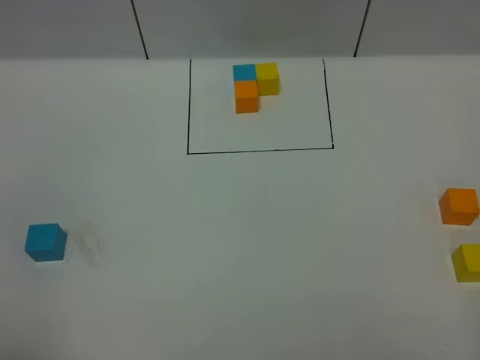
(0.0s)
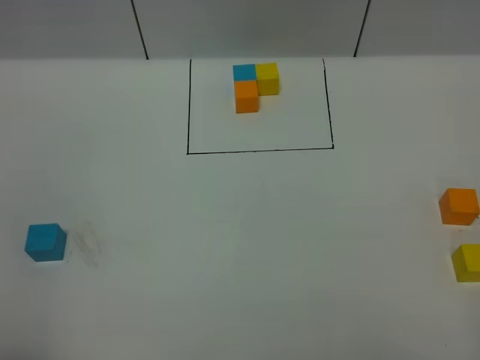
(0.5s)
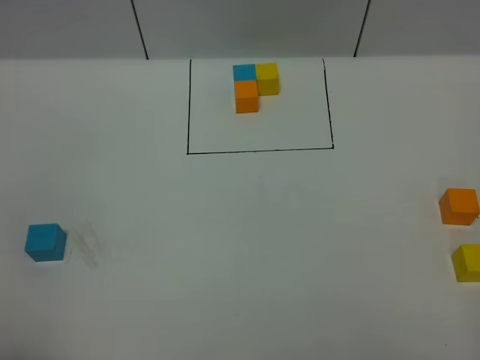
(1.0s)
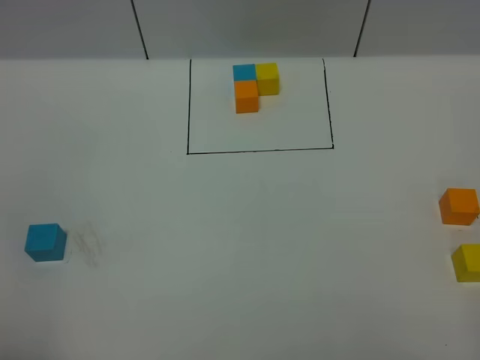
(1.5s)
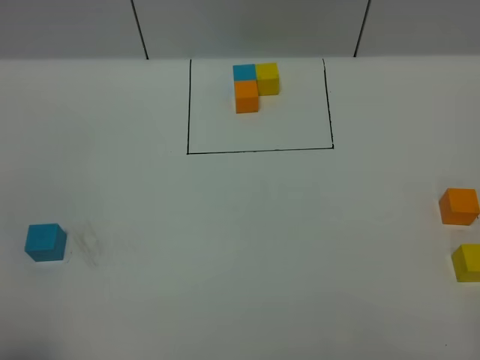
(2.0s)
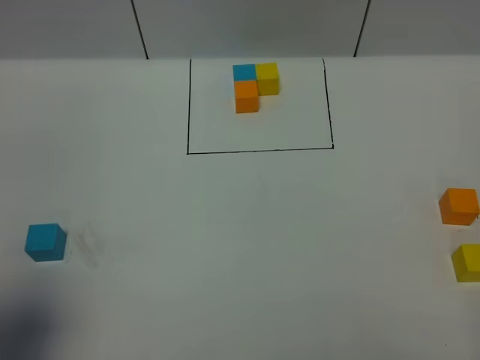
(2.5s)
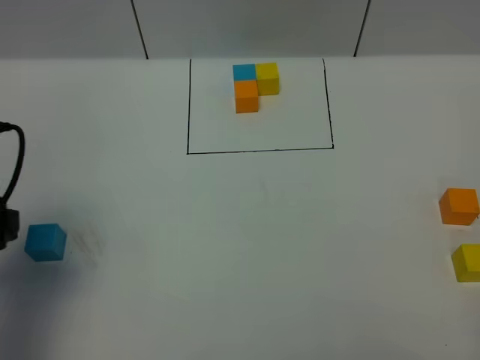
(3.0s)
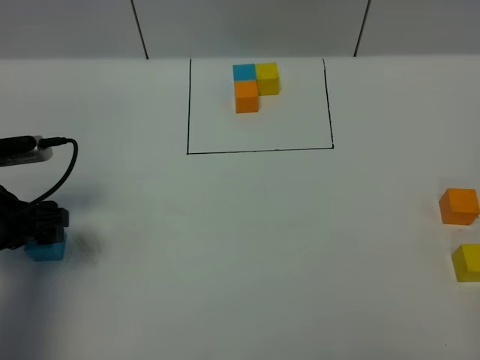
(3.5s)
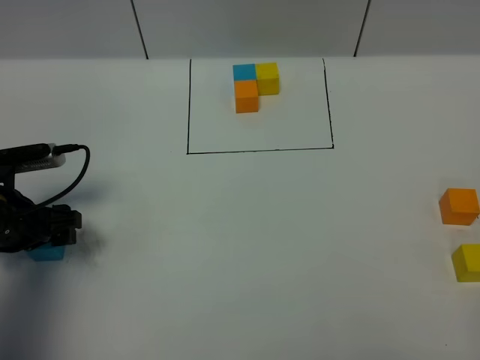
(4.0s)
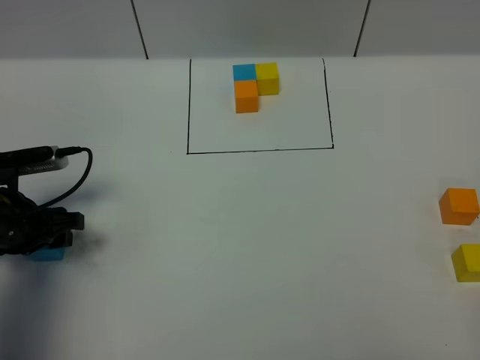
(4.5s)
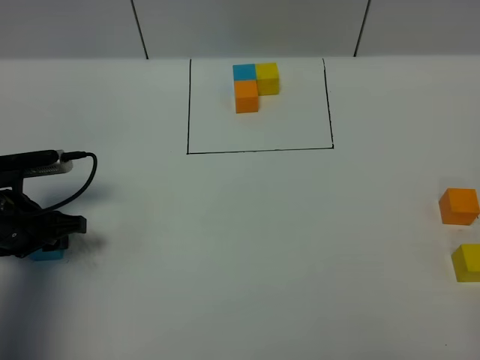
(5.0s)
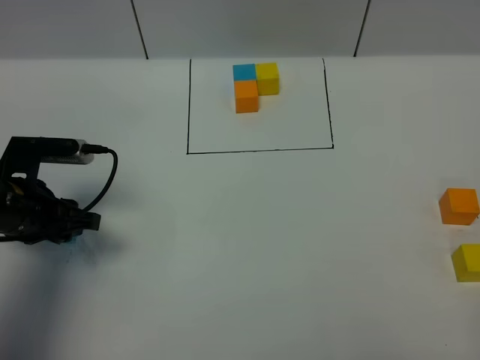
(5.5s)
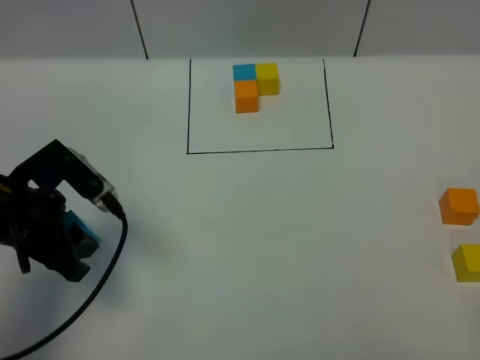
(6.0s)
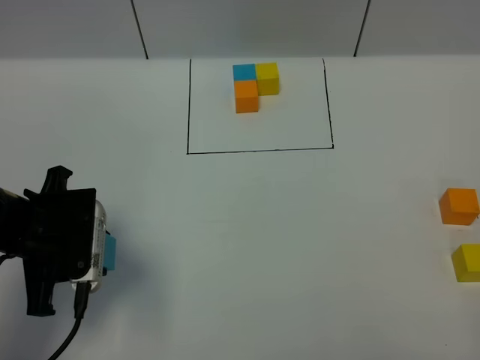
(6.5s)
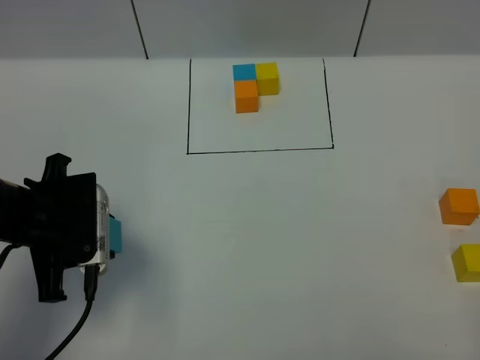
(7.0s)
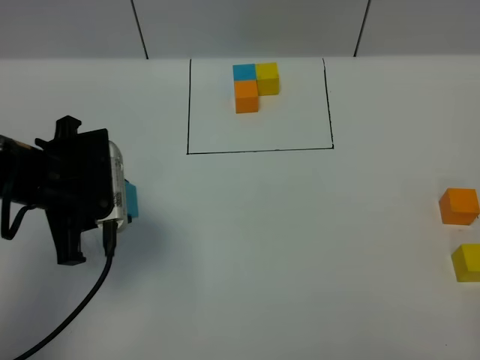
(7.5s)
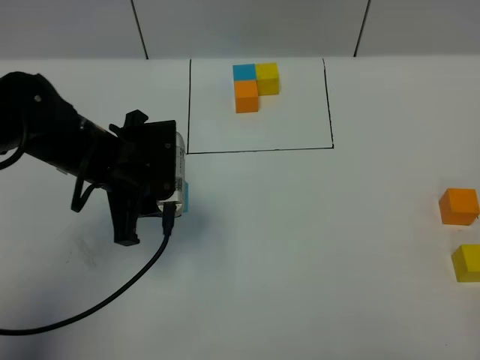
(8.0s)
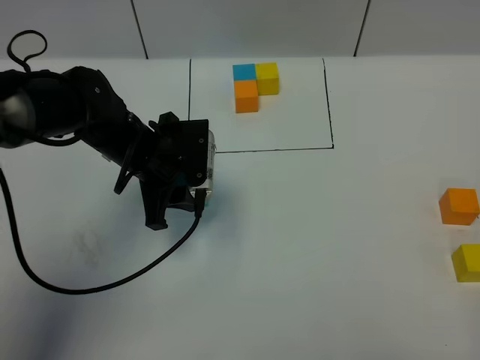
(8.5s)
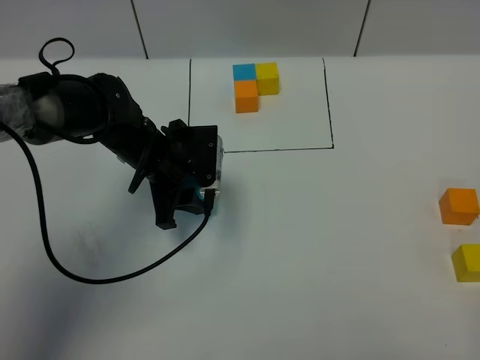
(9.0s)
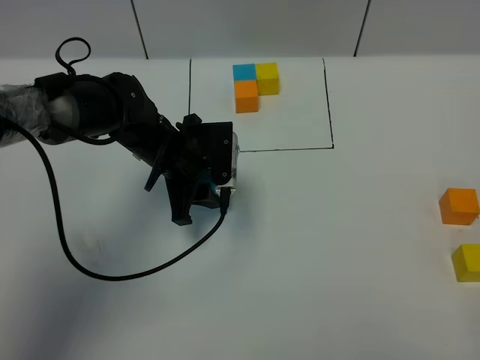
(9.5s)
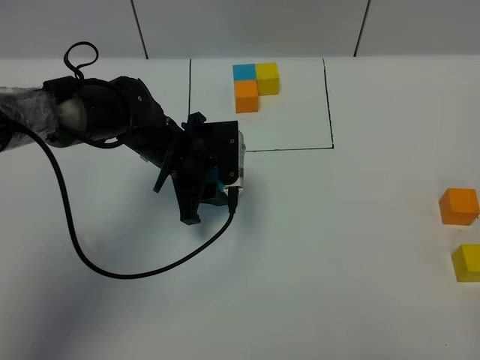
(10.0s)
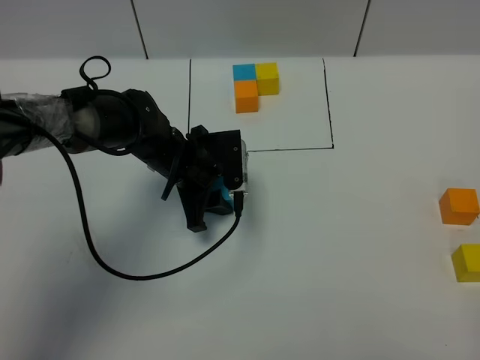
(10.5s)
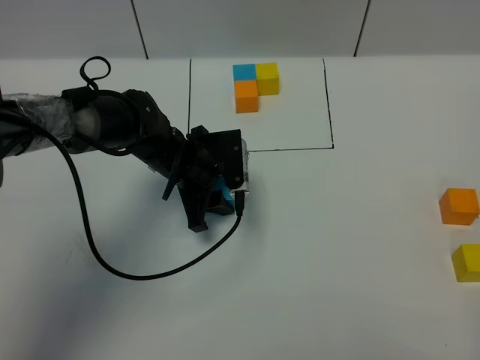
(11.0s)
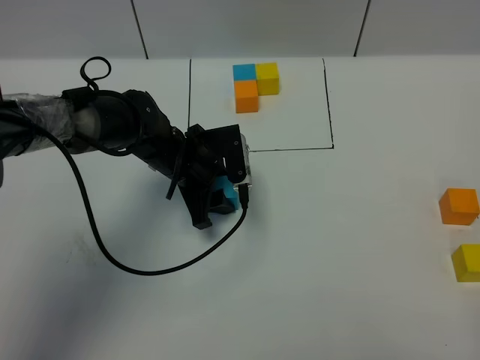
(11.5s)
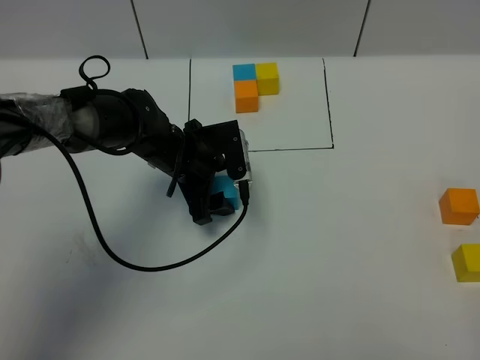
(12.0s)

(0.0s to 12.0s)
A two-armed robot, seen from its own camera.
Task of the whole recording: According to the building block template in front, assemble the scattered blocks together.
2.0s - 4.0s: The left gripper goes some 30 cm forward and downward.
4.0s - 6.0s: The left gripper heads upward, covering approximately 5 cm, and closes its fingers.
6.0s - 8.0s: The left gripper shifts some 10 cm to the right and forward.
8.0s - 10.0s: The left gripper heads downward, forward and to the right, covering roughly 10 cm.
10.0s - 12.0s: The left gripper opens.

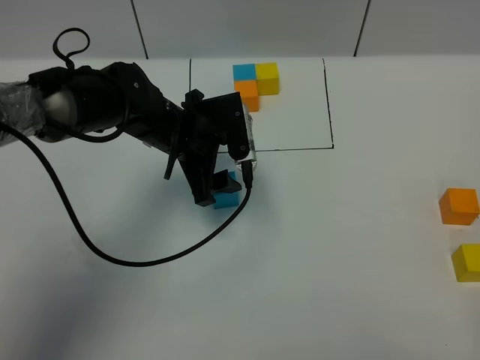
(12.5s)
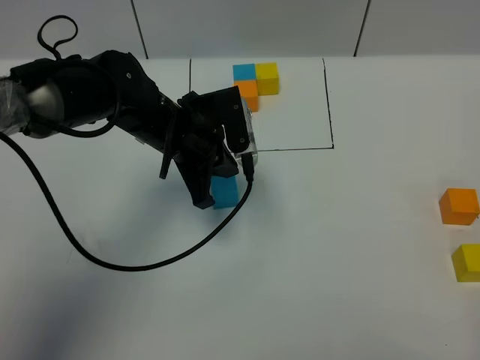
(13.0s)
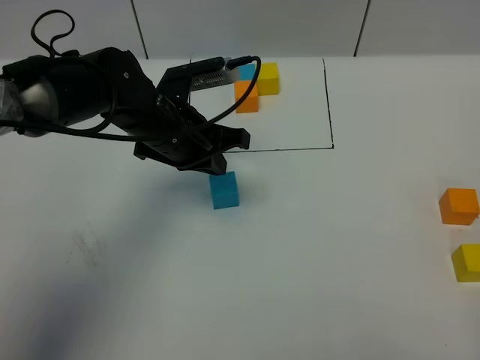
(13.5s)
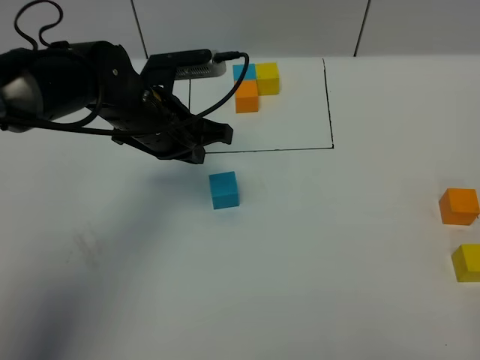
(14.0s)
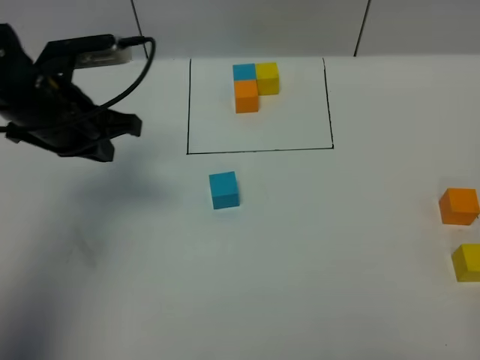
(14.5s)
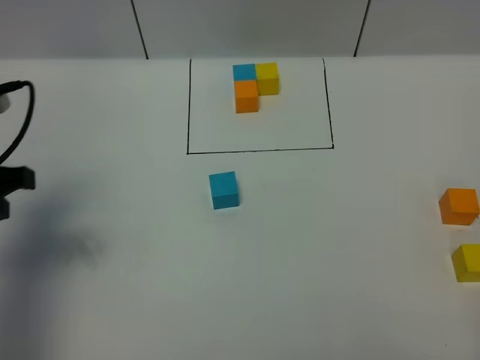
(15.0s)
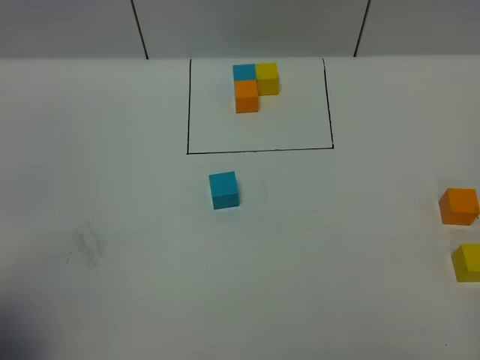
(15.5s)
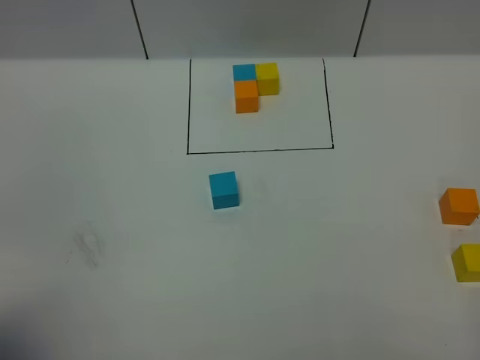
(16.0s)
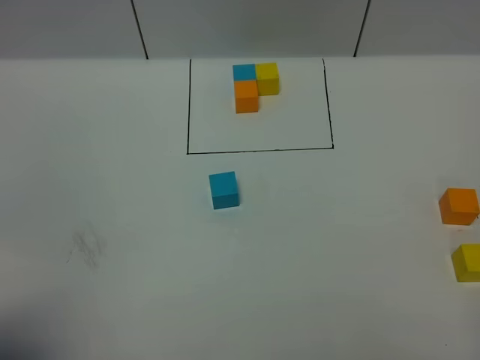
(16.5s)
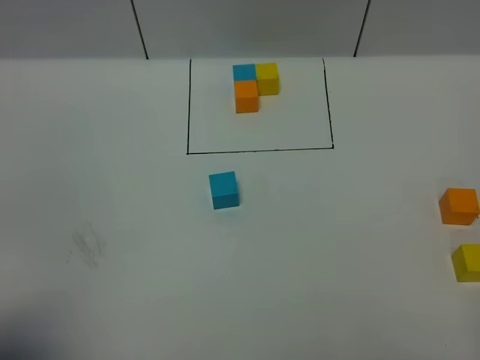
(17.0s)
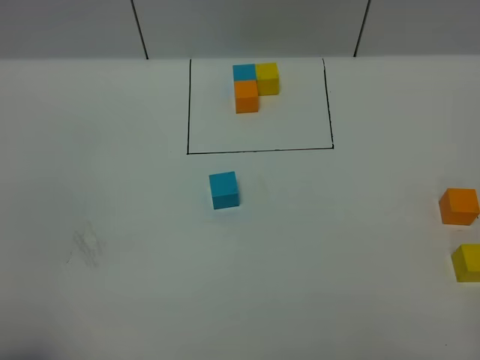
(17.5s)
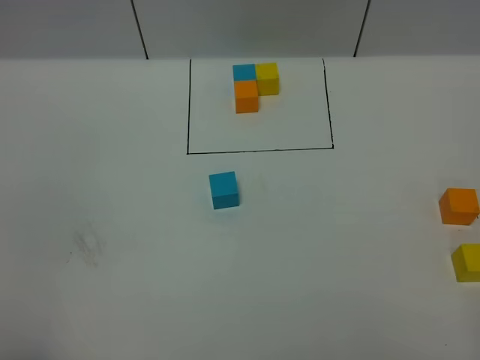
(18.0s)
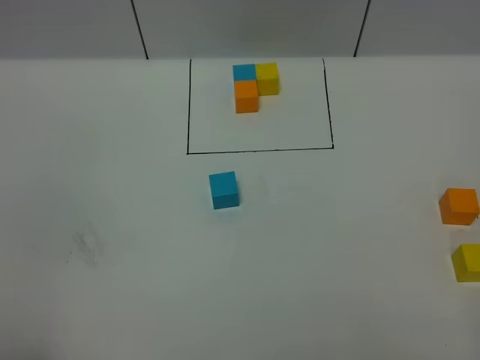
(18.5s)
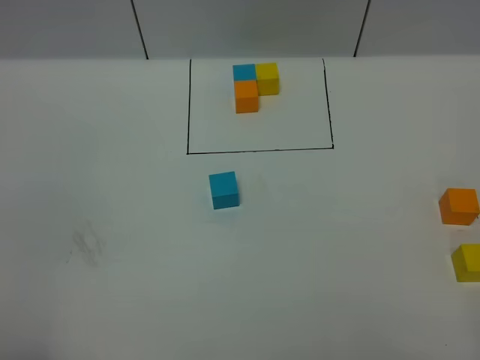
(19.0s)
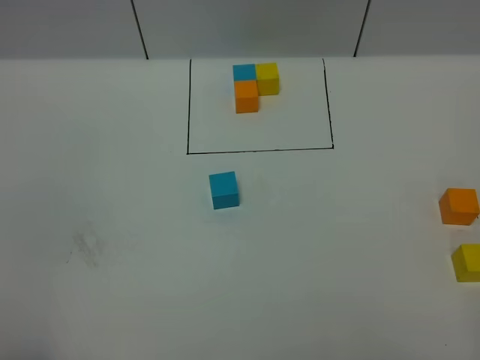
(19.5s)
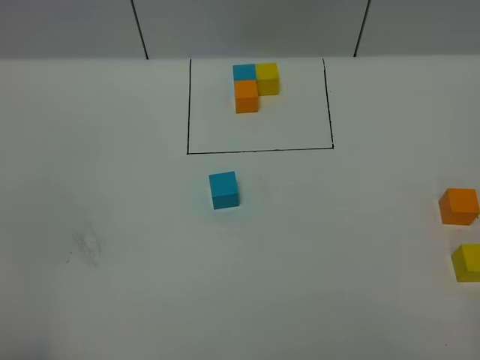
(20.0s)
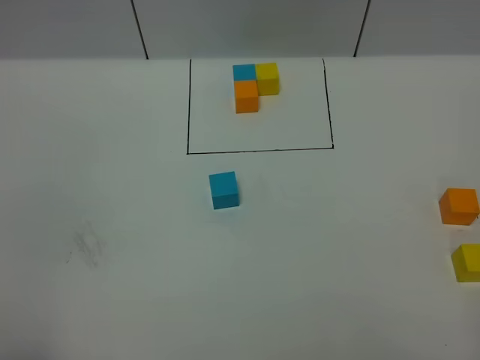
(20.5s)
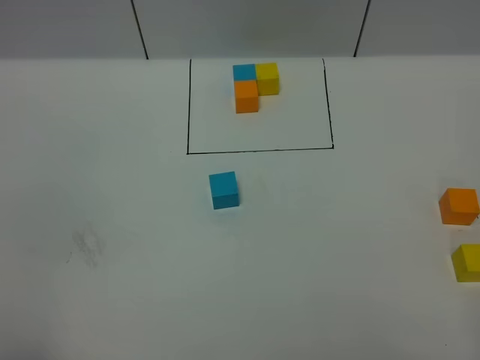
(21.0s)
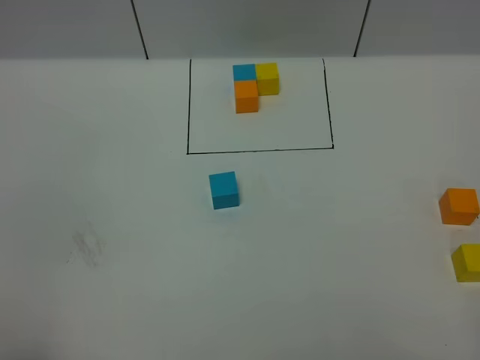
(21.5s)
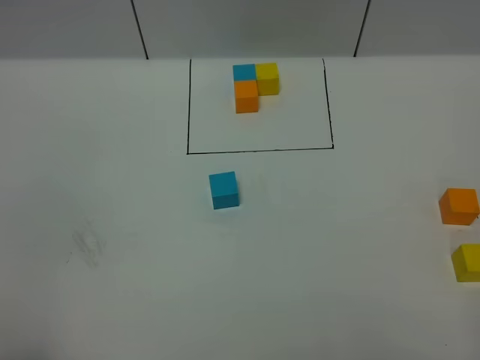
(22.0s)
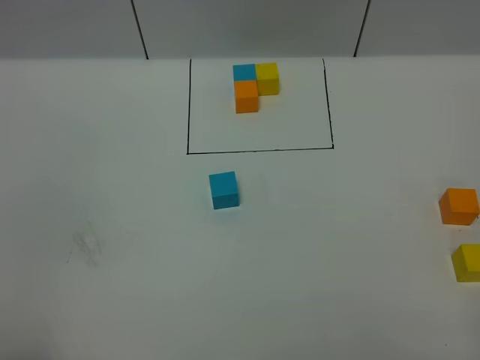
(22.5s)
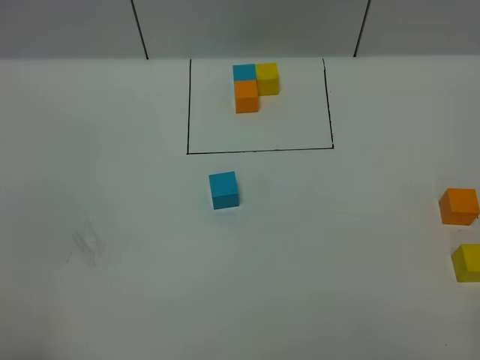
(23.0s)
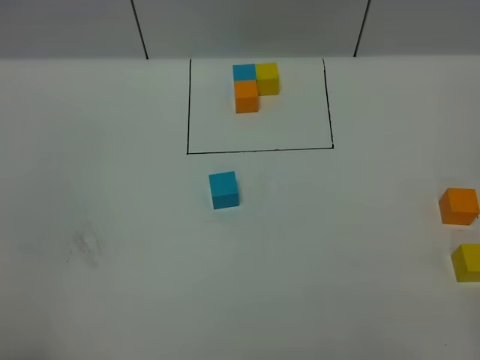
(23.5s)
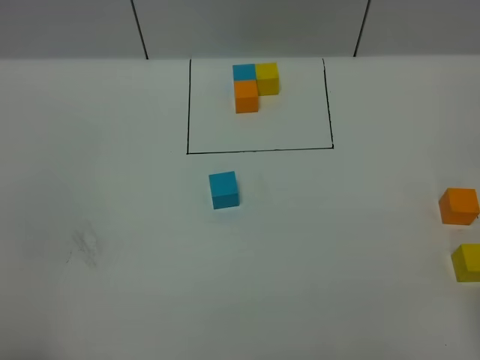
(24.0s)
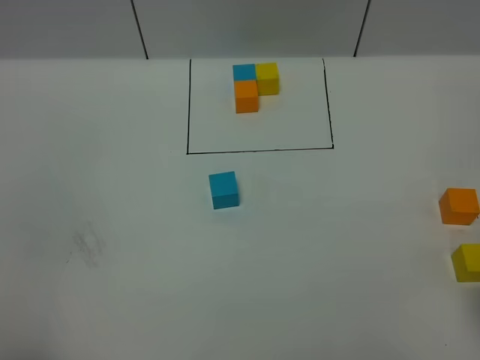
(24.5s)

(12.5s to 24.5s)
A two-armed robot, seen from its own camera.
Task of the whole recording: According to the building block template in front, assemble the scattered blocks together.
12.5s - 14.5s: The left gripper goes approximately 15 cm to the left and upward, and closes.
14.5s - 16.5s: The left gripper moves backward, roughly 30 cm.
18.5s - 20.5s: Neither gripper changes place.

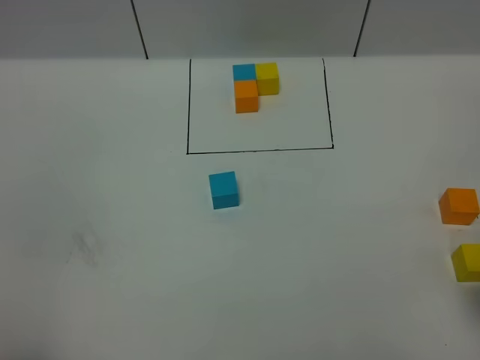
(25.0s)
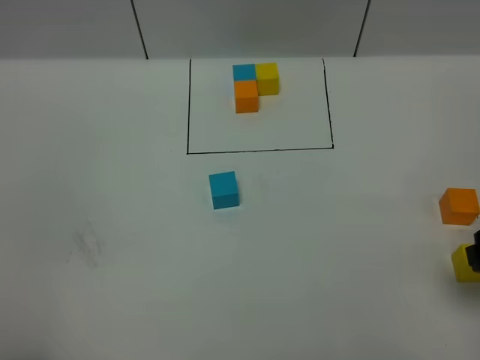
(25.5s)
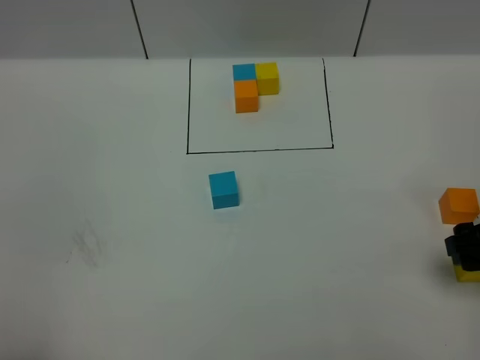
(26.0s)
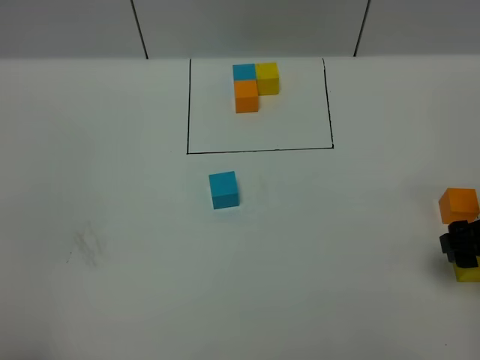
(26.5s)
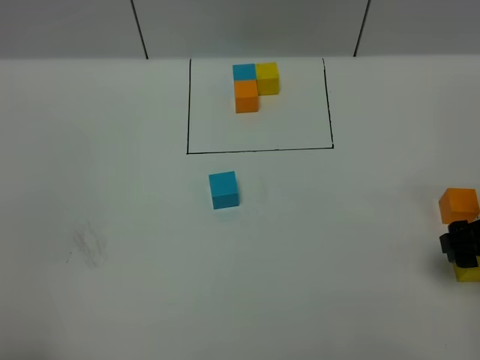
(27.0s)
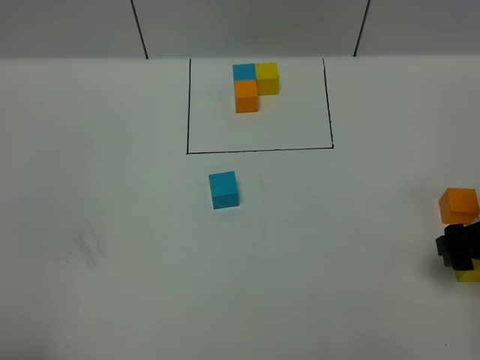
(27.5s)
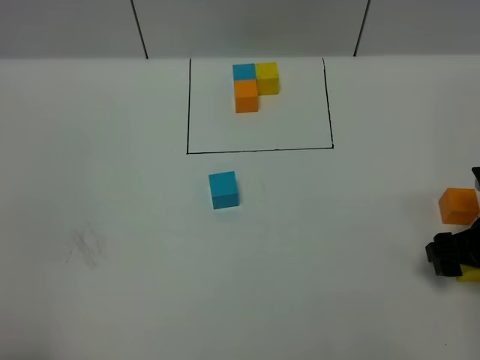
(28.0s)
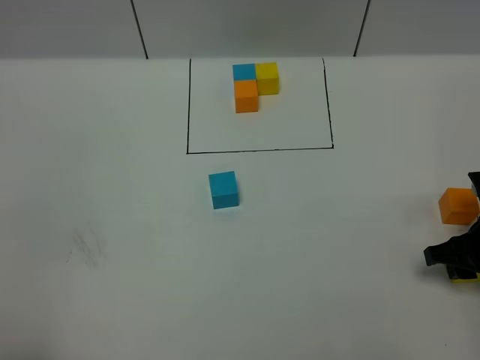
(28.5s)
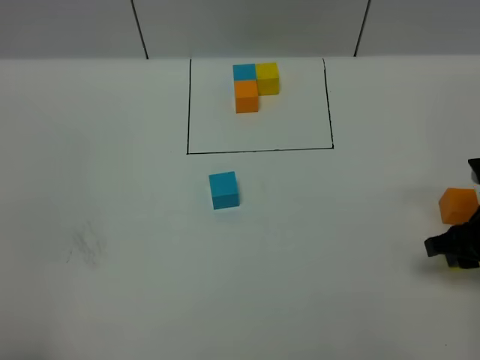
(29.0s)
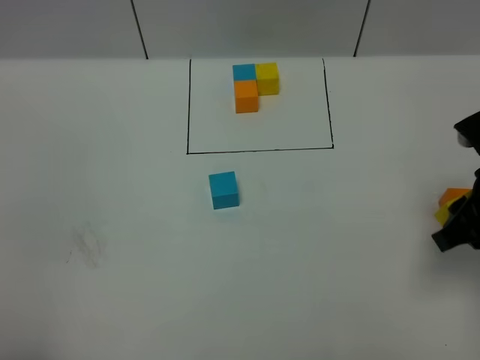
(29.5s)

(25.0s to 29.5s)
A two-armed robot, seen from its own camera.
Task of the whole recording: According to the building block template in front, assemble the scattered blocks together.
25.0s - 27.0s: The right gripper is displaced downward and forward by some 10 cm.
27.0s - 29.5s: The right gripper travels upward by some 5 cm, and closes up.
